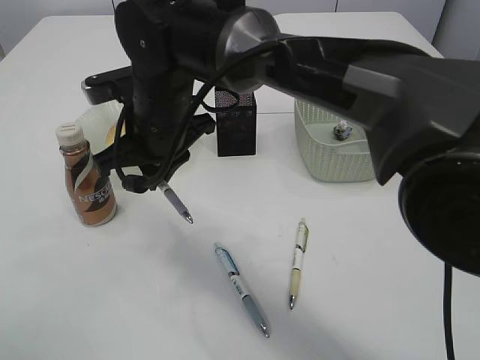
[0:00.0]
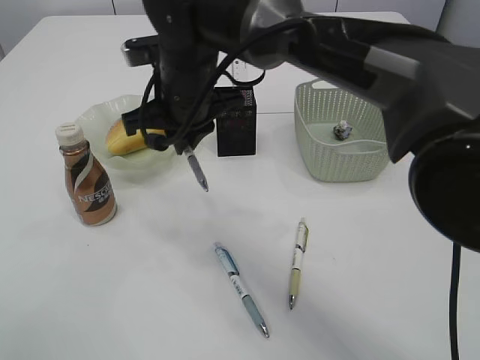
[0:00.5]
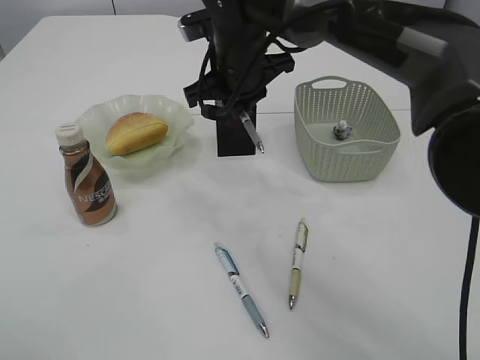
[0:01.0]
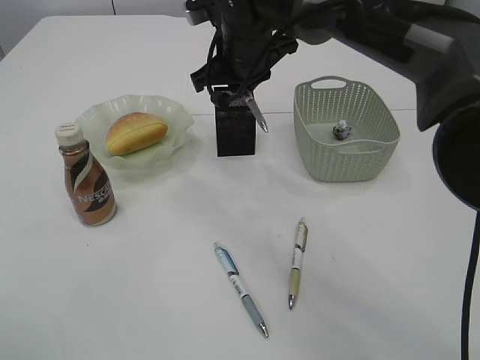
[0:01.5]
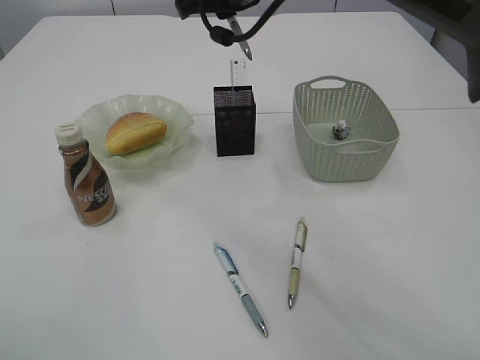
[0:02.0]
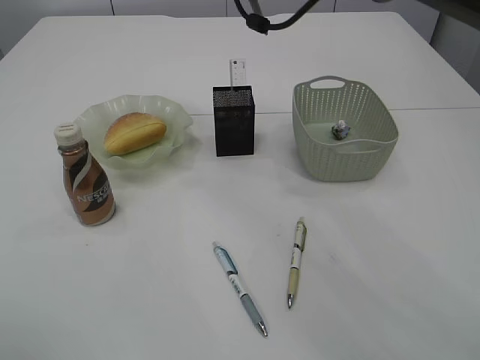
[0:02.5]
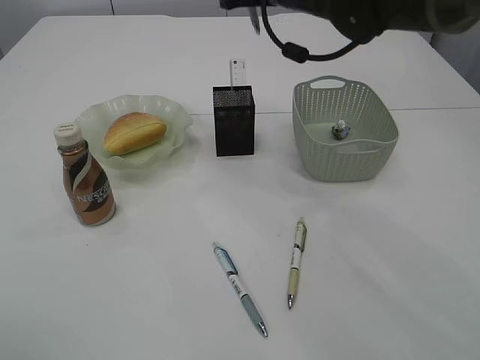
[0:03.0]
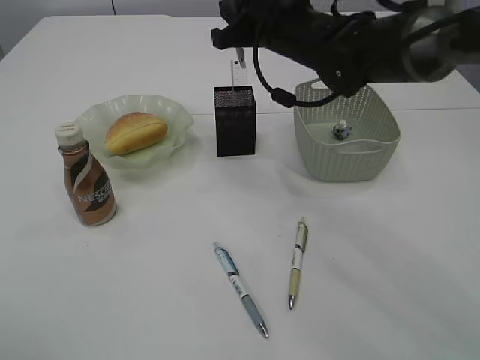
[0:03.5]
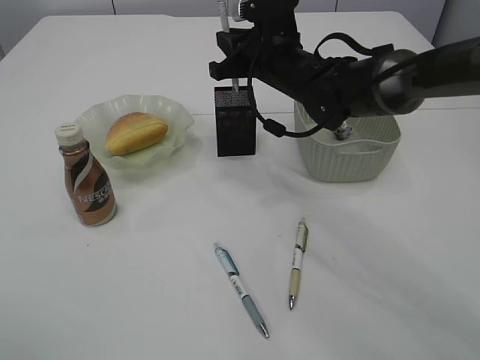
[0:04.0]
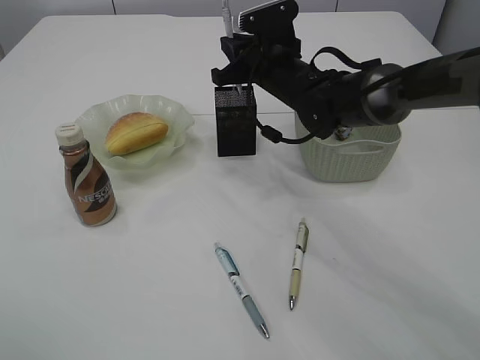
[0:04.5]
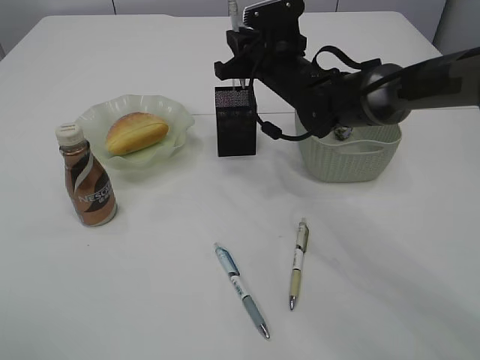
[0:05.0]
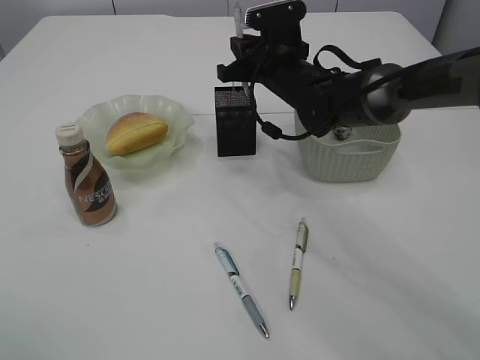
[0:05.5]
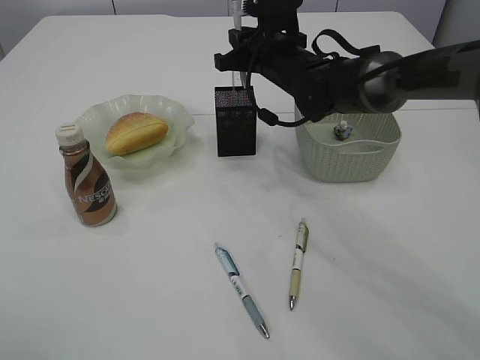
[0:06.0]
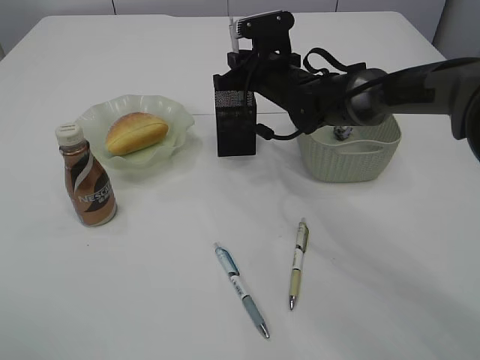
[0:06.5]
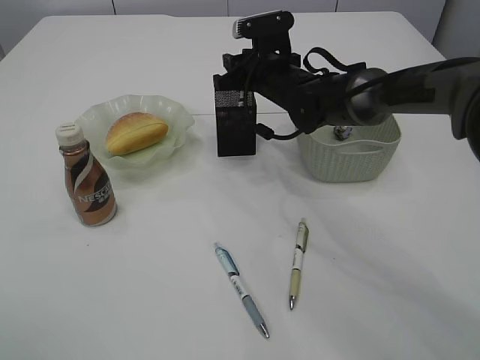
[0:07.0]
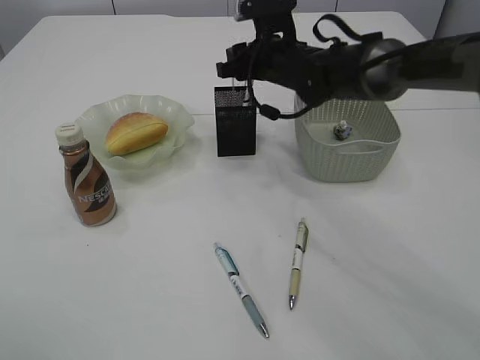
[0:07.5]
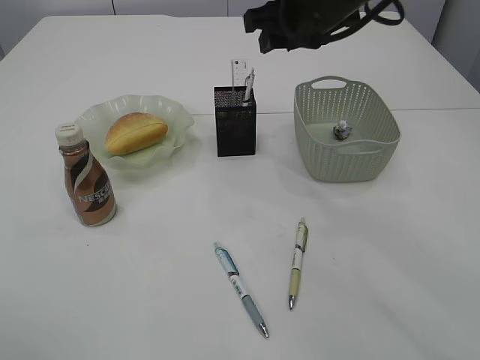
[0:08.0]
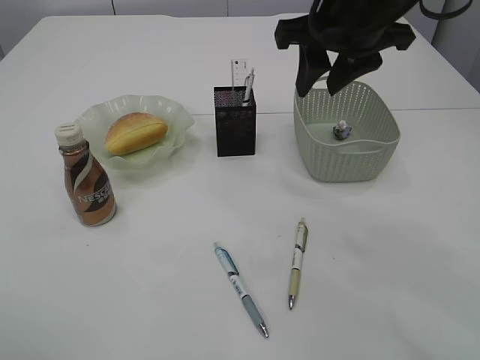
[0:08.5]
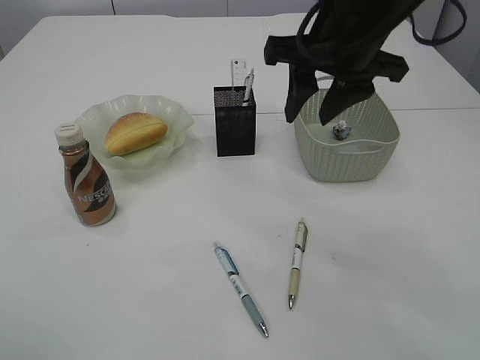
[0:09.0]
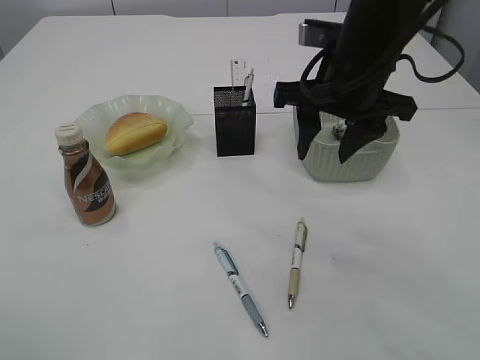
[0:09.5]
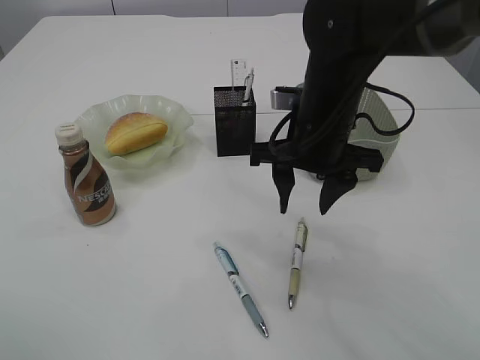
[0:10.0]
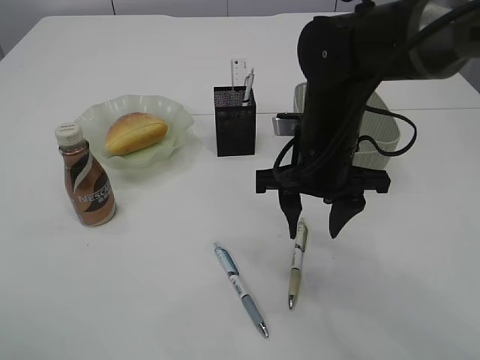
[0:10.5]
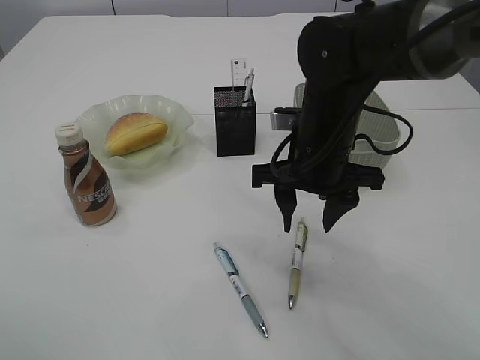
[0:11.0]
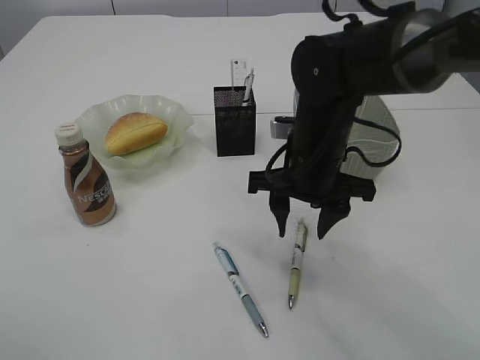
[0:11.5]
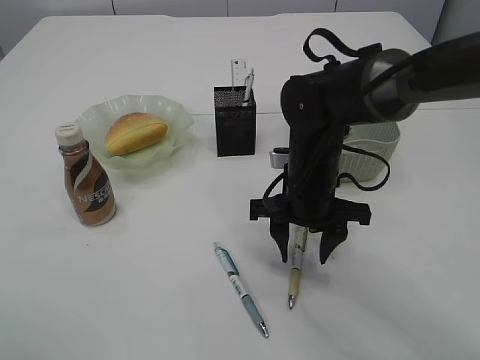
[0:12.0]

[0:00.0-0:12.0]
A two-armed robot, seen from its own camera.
Step, 0.0 to 7.5 s: Place the pen into the pen holder.
0.0 to 2.0 s: The right gripper heads upward, to the right and forward, covering roughly 15 cm.
2.0 to 4.0 s: The right gripper travels downward by approximately 10 cm.
4.0 to 6.0 s: The grippers move only a little.
6.0 to 8.0 s: The right gripper goes approximately 10 cm upward and backward, and opens up.
8.0 to 10.0 s: The right gripper moves downward and backward, approximately 10 cm.
10.0 to 12.0 s: The right gripper goes about 10 cm downward.

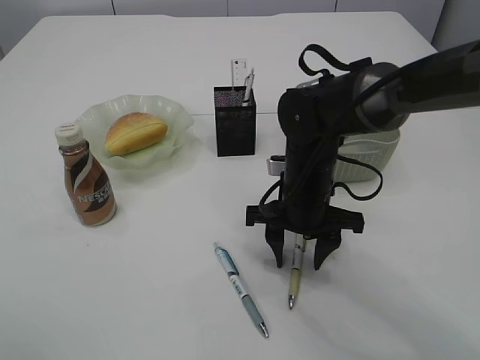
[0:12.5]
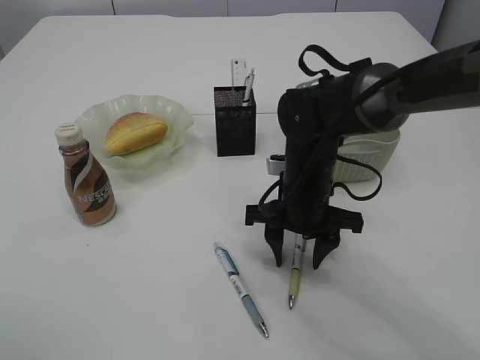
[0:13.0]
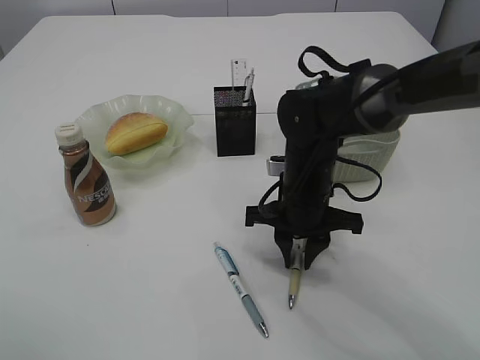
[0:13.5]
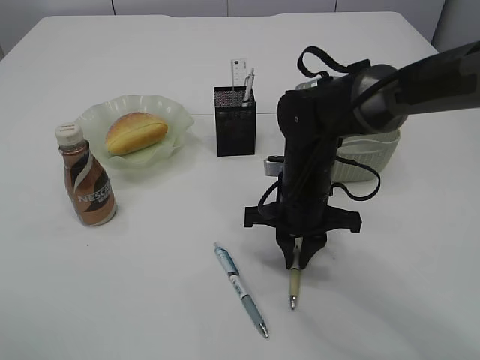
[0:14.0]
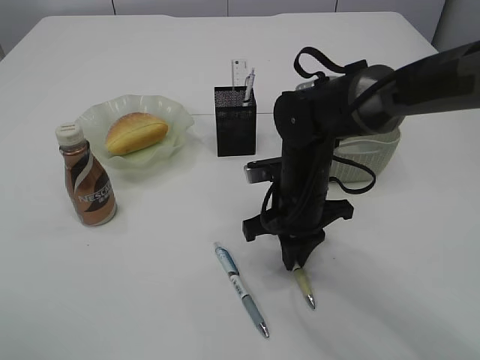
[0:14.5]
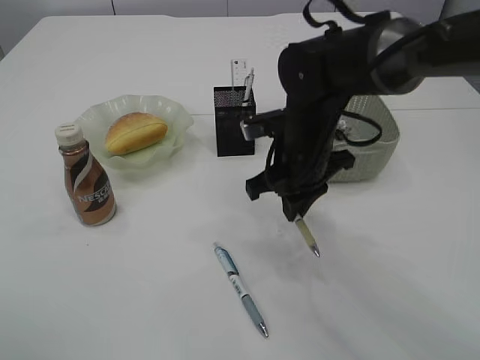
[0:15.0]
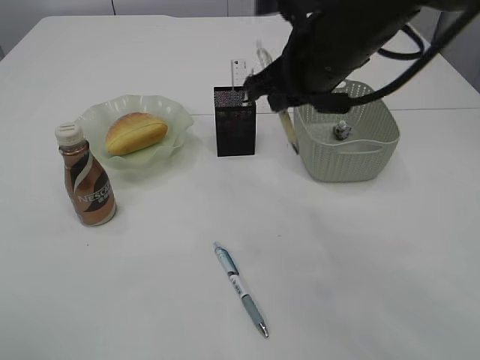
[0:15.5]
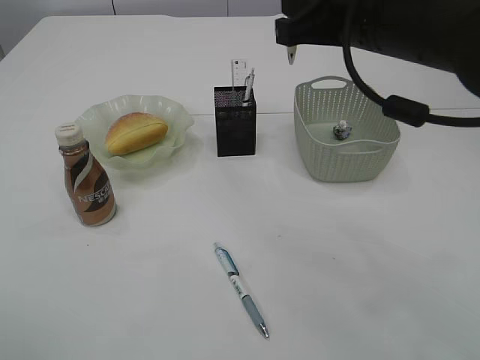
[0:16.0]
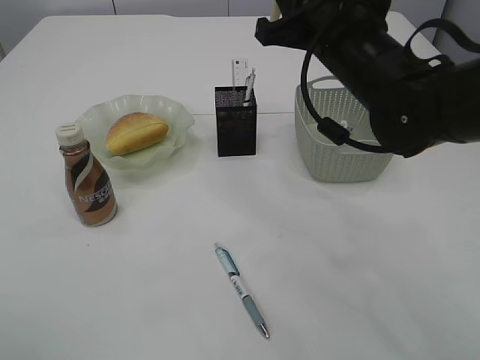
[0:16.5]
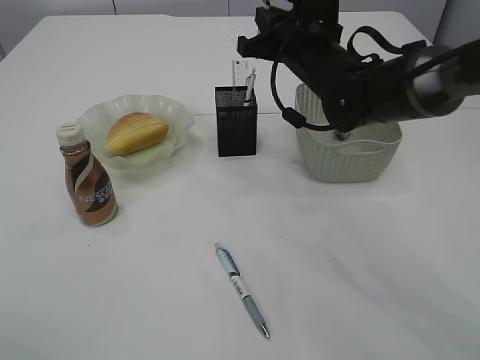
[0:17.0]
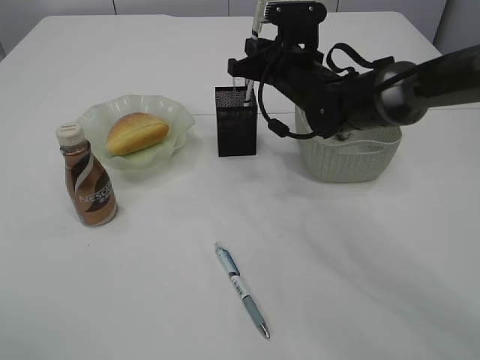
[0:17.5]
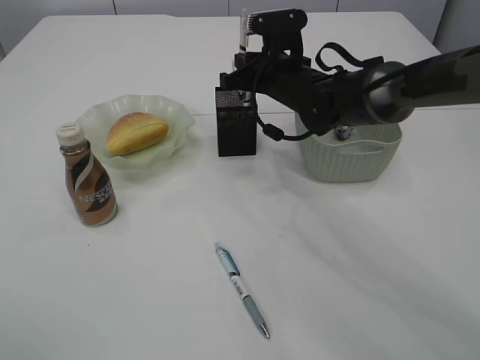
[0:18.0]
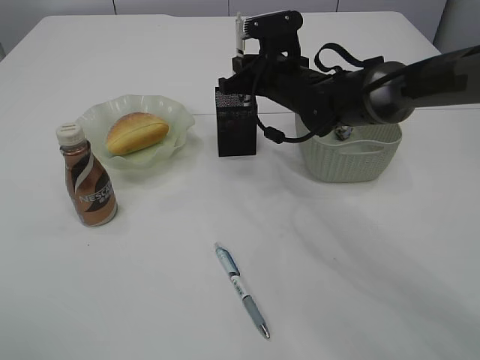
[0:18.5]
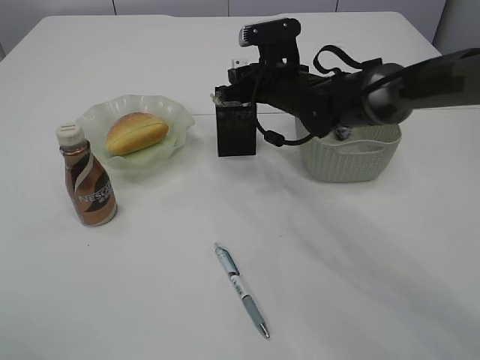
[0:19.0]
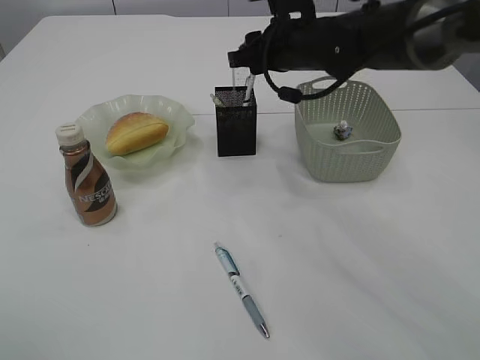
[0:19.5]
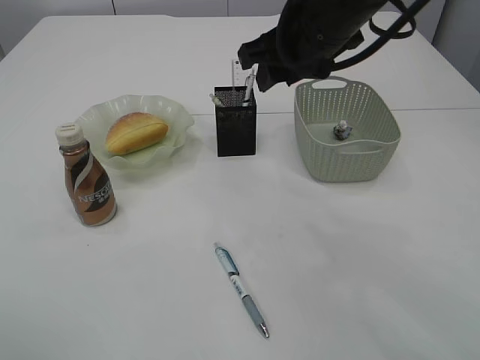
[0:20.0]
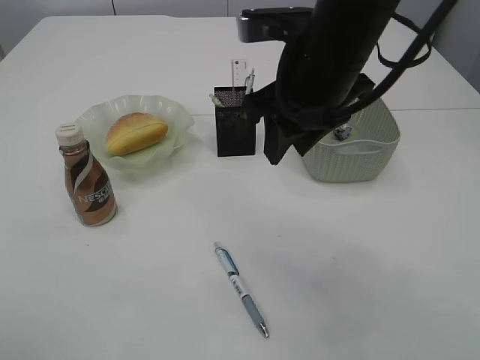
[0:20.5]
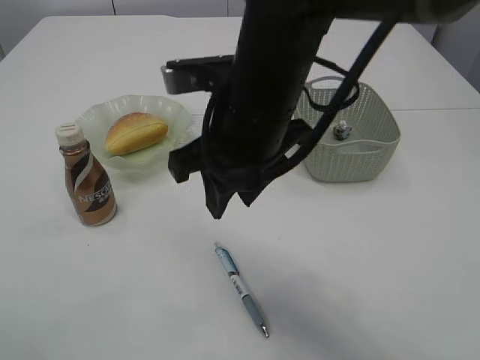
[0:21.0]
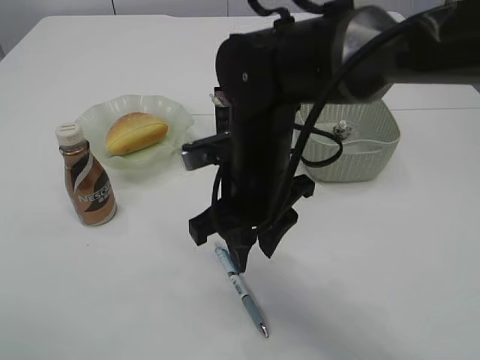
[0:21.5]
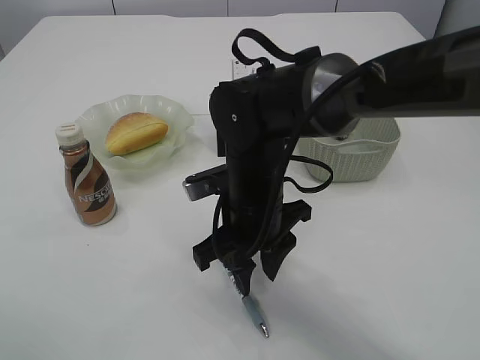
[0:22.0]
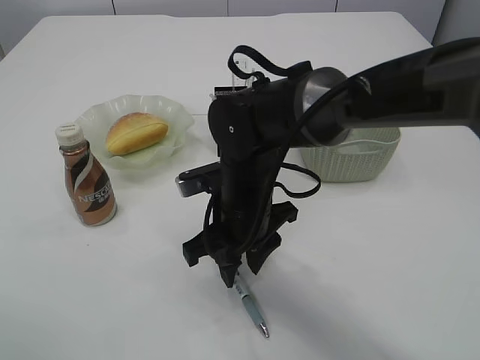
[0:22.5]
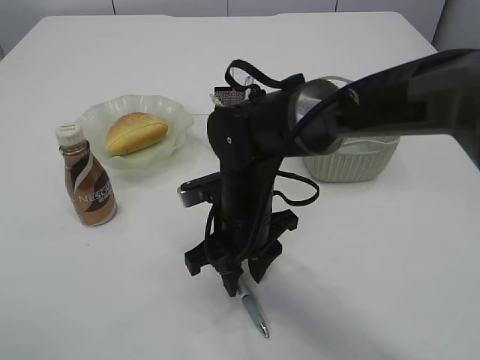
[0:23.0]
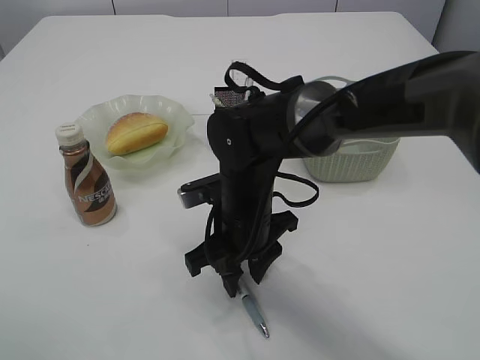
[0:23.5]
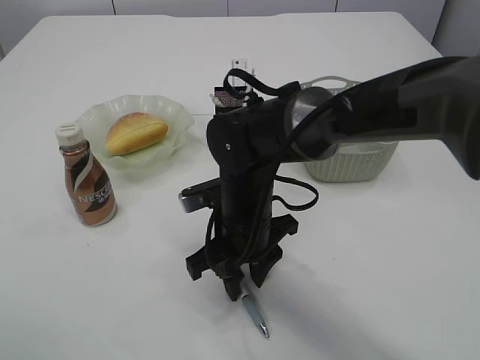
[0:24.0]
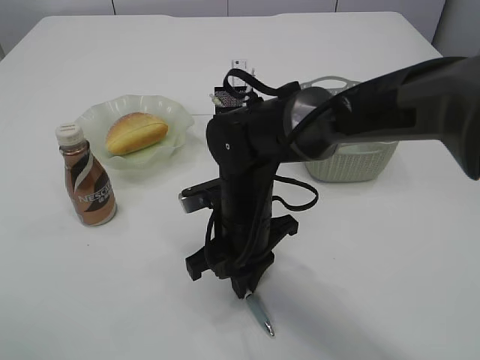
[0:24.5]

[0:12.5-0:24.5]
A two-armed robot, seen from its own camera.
Step, 12.5 to 15.0 s: Pick up the pen with right arm.
Step, 15.5 to 19.5 s: Place the pen into the pen holder.
12.5 to 14.5 s: The right gripper closes.
14.5 to 16.5 s: The right gripper is displaced upward by some 15 cm.
16.5 to 18.5 s: The right gripper travels forward and downward by approximately 15 cm.
18.5 to 20.5 s: The right gripper moves backward and upward, some 20 cm, and opens its fingers.
20.5 to 22.5 s: The right gripper shifts approximately 20 cm downward and to the left.
22.5 to 24.5 s: The right gripper closes its fingers.

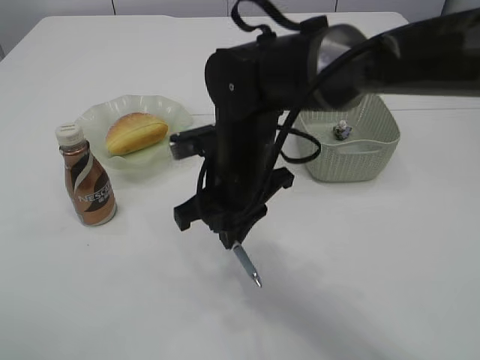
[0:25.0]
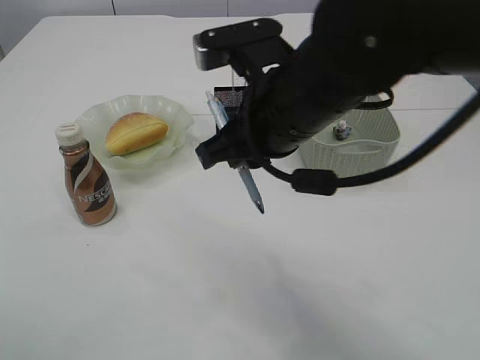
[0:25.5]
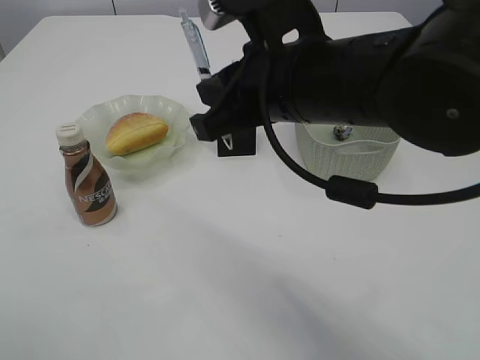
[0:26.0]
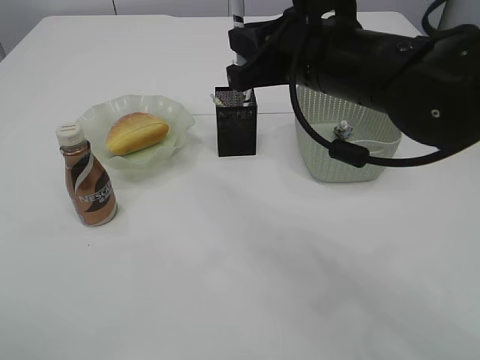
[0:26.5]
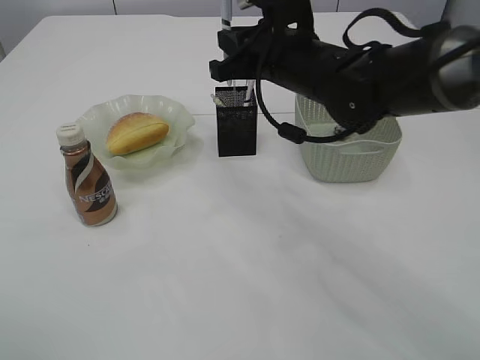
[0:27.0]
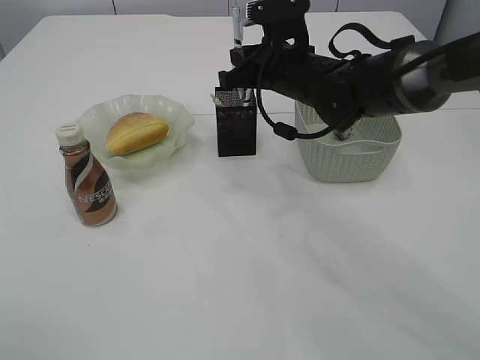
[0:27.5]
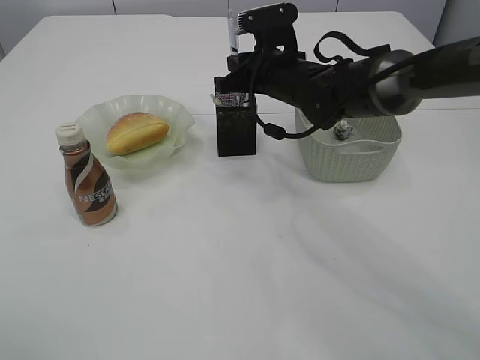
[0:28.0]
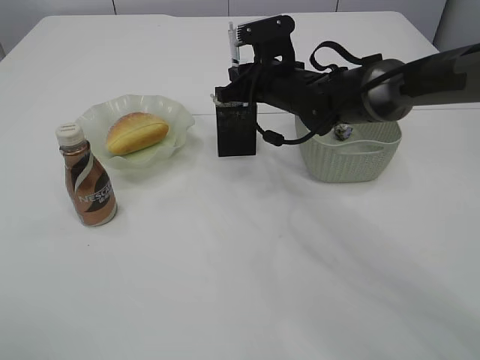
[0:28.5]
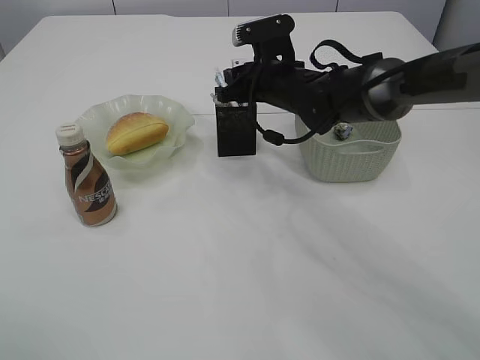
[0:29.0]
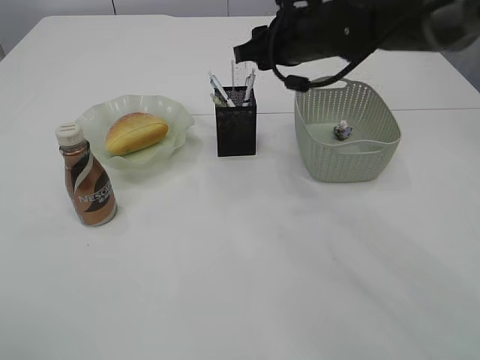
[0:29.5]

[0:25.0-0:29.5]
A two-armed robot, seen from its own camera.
25.0 to 27.0 s: The right gripper shifts approximately 15 cm forward, to the right and upward.
27.0 to 29.5 s: The right gripper travels downward and back again, about 5 cm each way, and opens its fingers.
